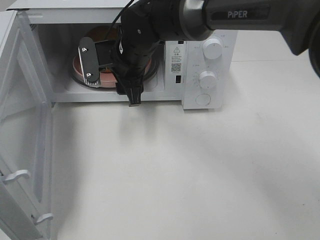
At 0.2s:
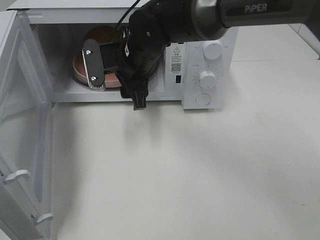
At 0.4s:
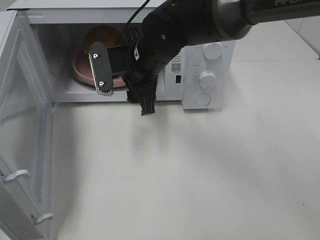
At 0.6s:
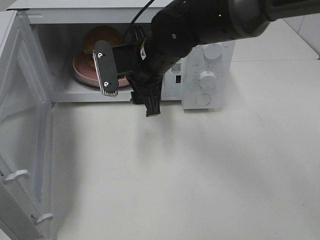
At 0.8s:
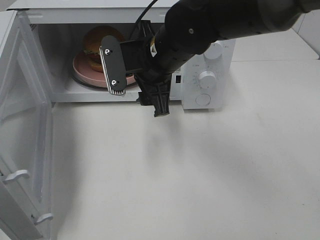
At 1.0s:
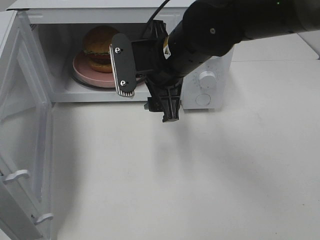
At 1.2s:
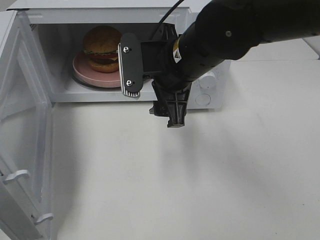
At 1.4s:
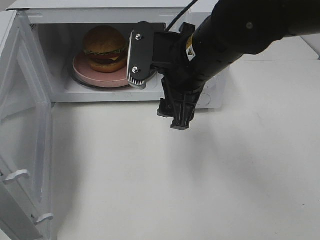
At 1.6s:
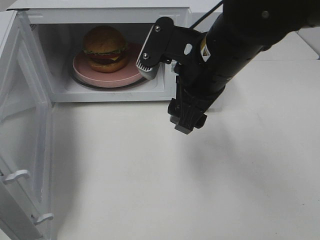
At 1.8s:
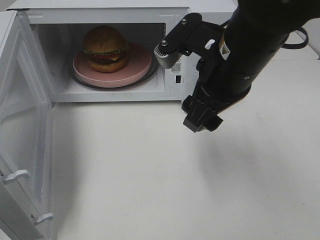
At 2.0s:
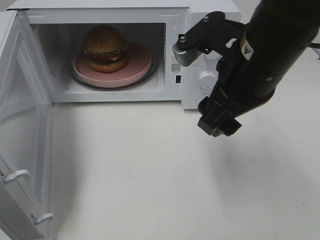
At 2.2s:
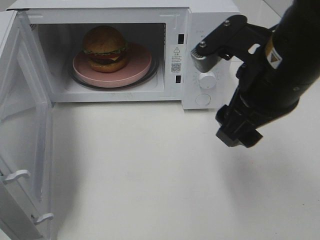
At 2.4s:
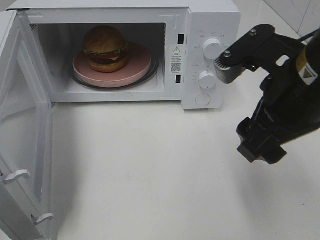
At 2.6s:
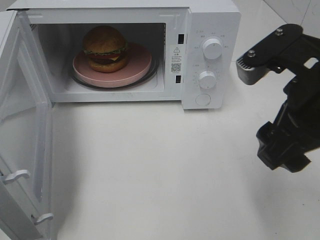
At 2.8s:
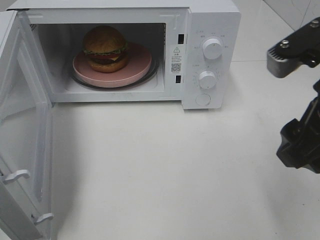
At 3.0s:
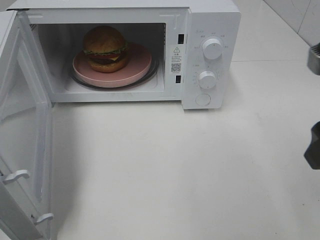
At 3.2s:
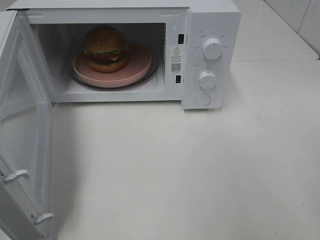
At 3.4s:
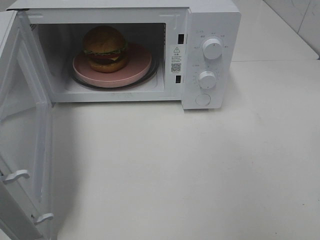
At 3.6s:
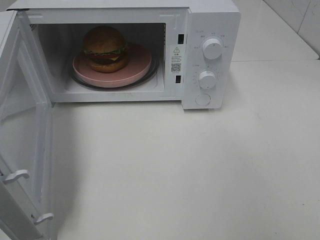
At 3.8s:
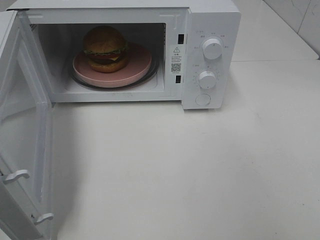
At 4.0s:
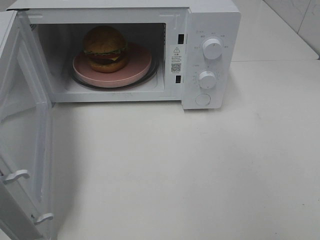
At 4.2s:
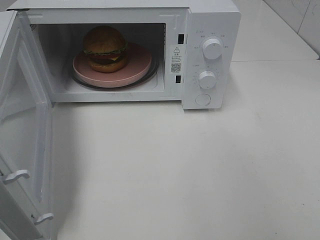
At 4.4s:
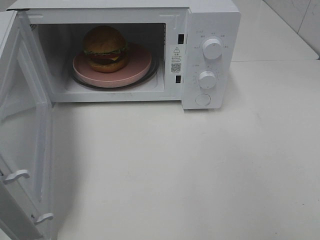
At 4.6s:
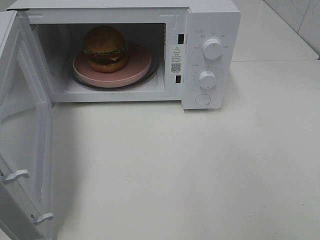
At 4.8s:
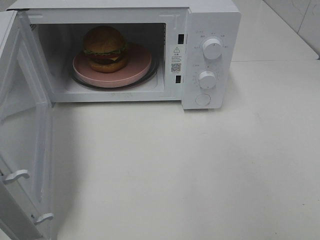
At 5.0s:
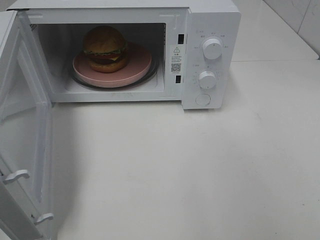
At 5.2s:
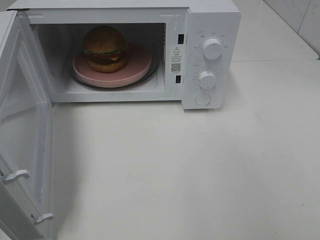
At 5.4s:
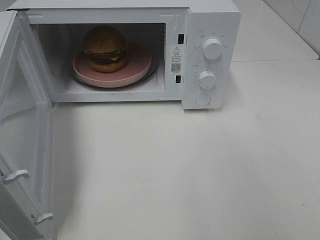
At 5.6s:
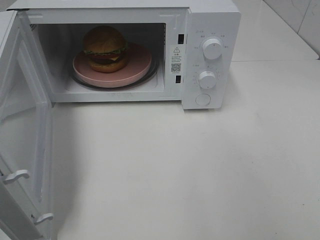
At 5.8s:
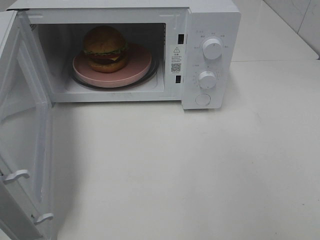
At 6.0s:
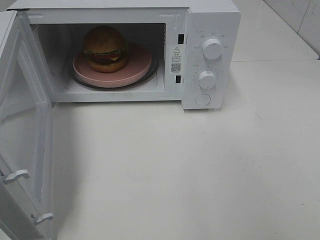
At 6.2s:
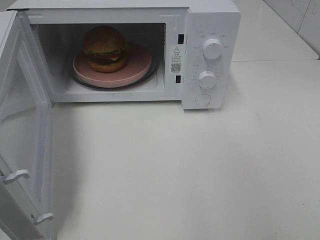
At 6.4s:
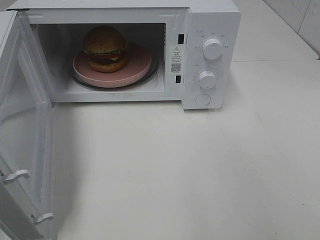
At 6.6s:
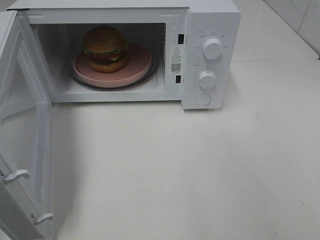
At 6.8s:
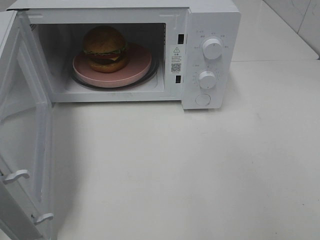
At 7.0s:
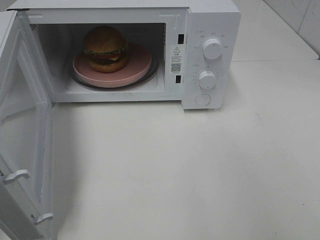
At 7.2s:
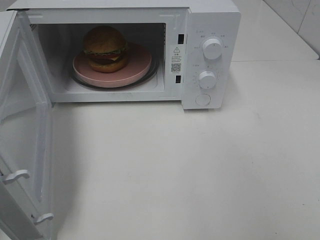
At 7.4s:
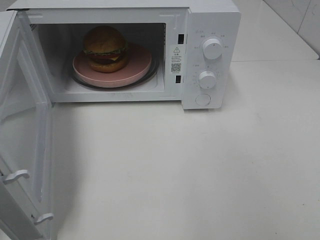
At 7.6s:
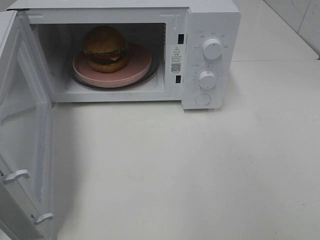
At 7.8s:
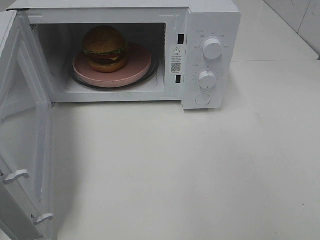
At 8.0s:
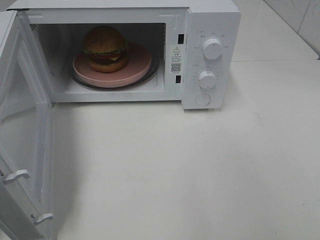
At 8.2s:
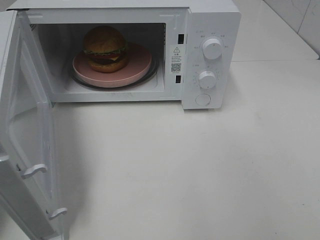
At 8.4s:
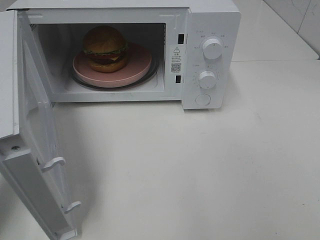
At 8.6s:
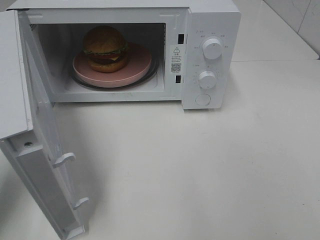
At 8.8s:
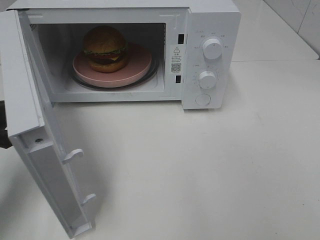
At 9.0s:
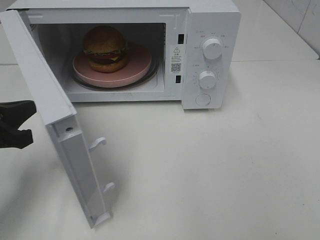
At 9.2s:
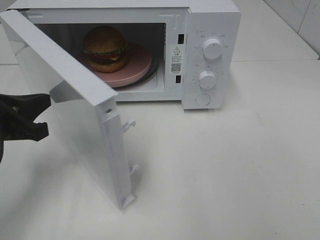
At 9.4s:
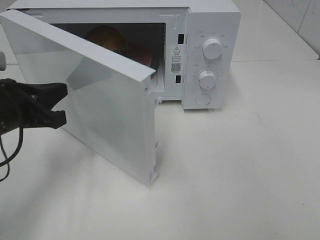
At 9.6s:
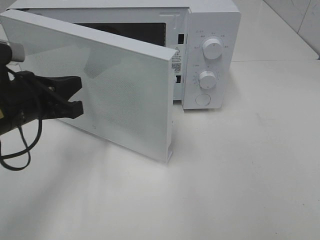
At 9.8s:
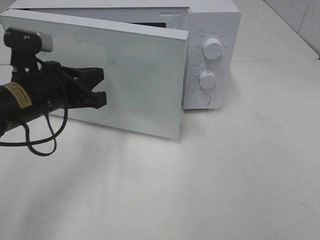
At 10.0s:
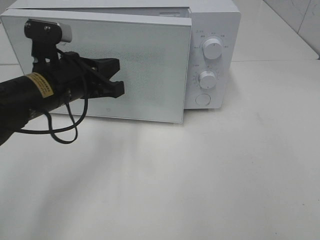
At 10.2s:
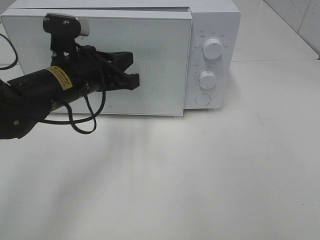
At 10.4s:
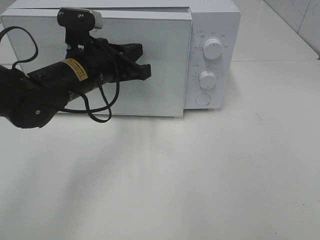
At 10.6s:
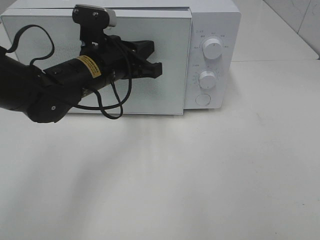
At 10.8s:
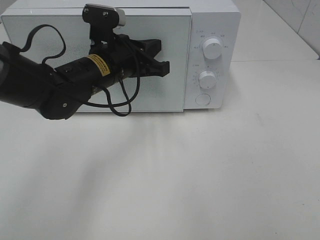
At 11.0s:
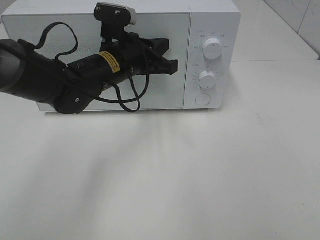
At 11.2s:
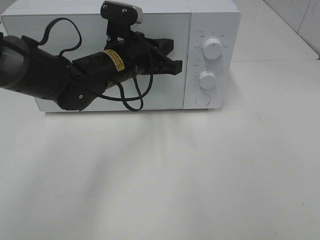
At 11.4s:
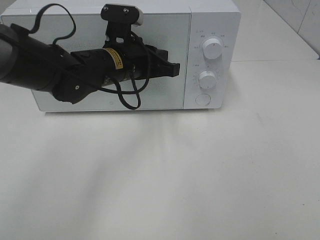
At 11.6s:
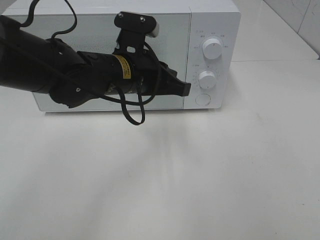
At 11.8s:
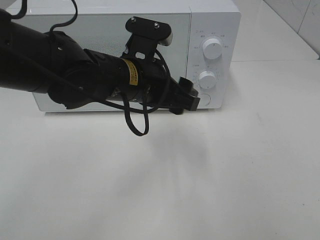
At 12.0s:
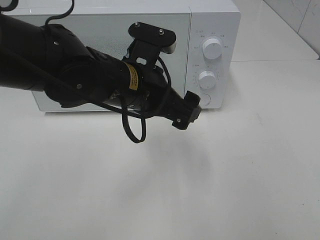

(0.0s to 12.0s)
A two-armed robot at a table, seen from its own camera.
Task of the whole recording: Heat the burger.
Step, 0.0s - 11.4s: Left hand: close the microwave door.
0.0s - 1.6s: The right gripper is displaced backward, to the right and upward by some 20 cm.
1.6s - 3.0s: The right gripper heads to the right and backward, covering roughly 20 cm.
3.0s - 4.4s: The right gripper shifts about 20 cm backward and to the right.
4.4s - 6.0s: Neither gripper changes place.
7.6s - 9.0s: The left gripper heads downward, to the right and forward, covering approximately 10 cm.
9.0s - 10.4s: The left gripper moves to the right and forward, roughly 20 cm.
10.4s - 12.0s: The left gripper shifts roughly 10 cm to the right and backward, and opens up.

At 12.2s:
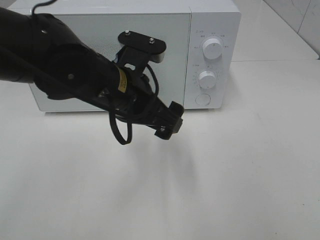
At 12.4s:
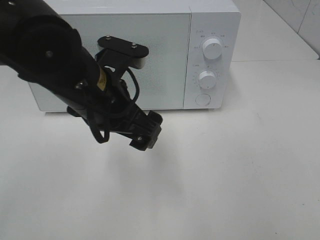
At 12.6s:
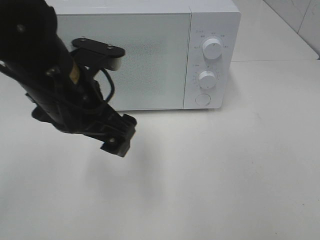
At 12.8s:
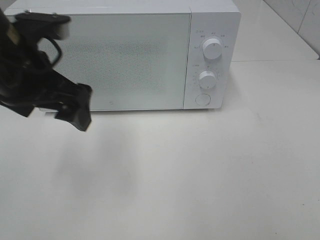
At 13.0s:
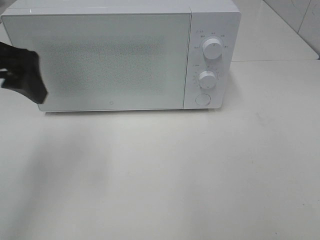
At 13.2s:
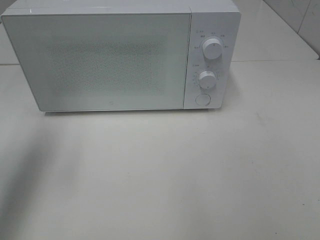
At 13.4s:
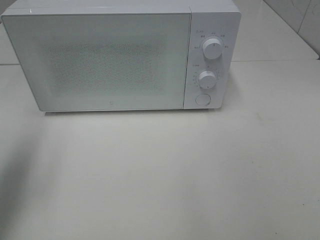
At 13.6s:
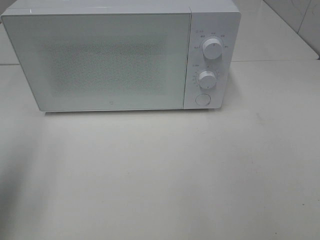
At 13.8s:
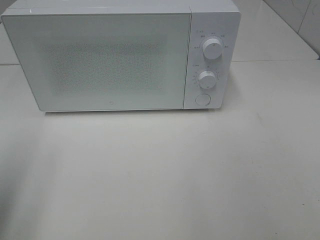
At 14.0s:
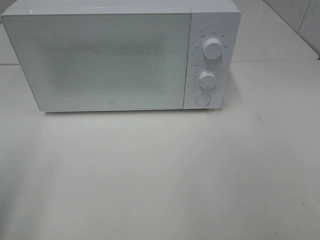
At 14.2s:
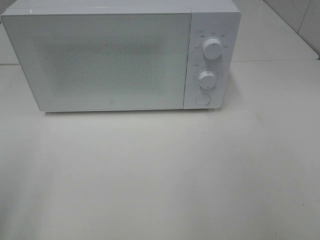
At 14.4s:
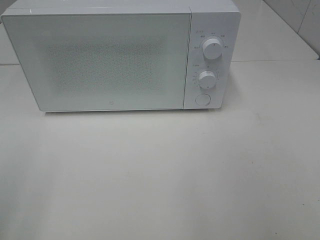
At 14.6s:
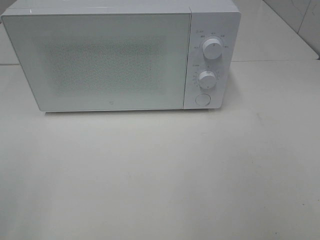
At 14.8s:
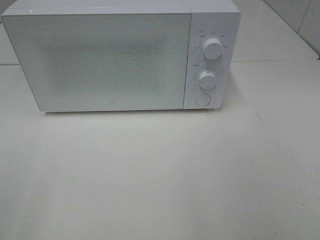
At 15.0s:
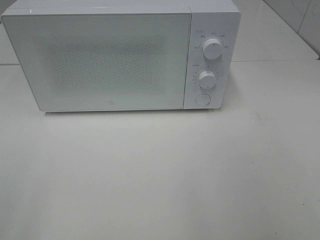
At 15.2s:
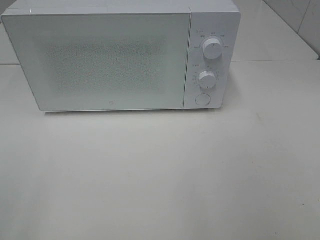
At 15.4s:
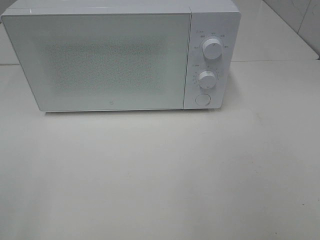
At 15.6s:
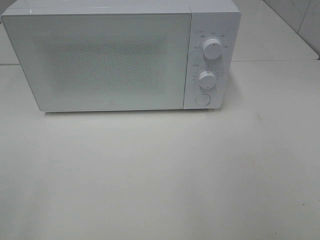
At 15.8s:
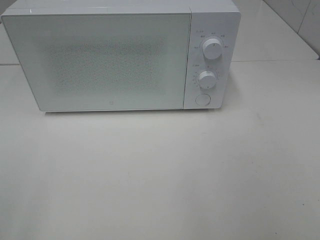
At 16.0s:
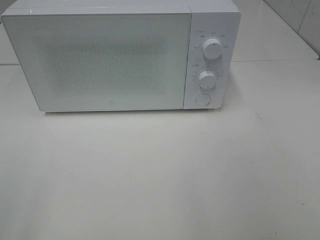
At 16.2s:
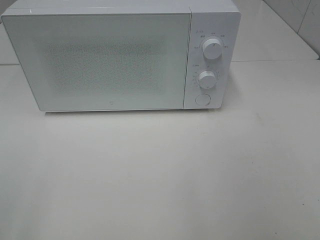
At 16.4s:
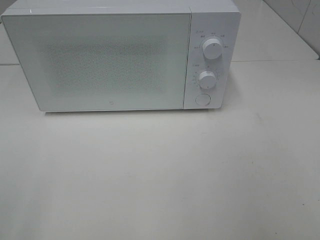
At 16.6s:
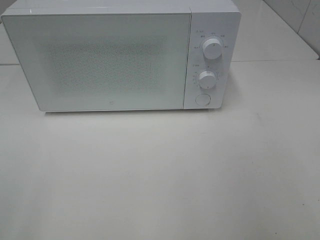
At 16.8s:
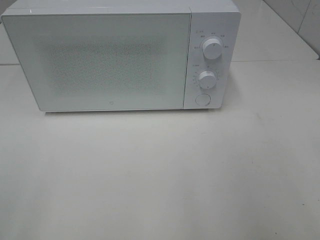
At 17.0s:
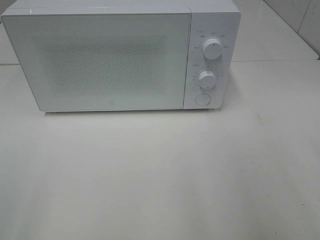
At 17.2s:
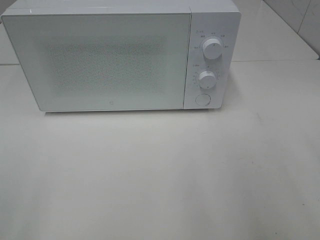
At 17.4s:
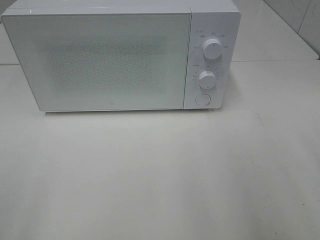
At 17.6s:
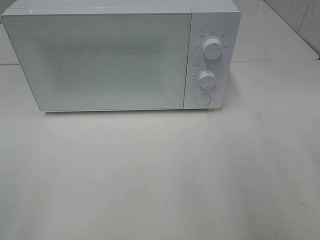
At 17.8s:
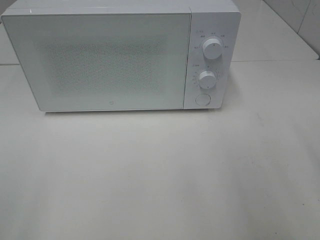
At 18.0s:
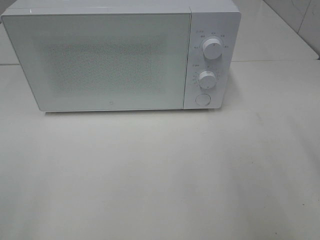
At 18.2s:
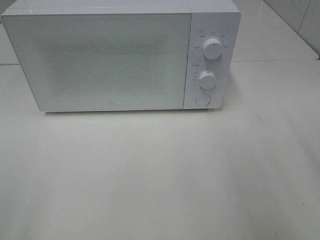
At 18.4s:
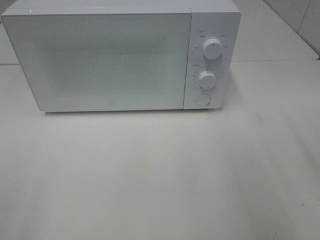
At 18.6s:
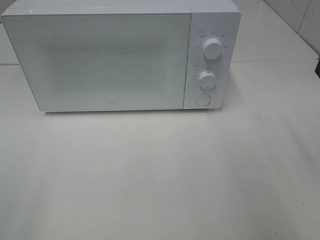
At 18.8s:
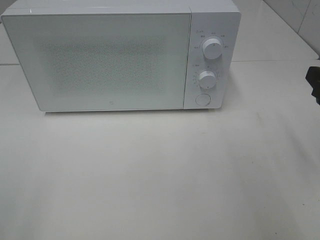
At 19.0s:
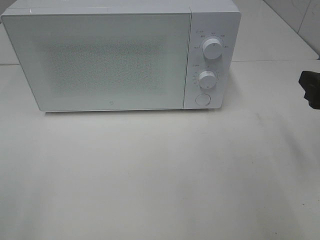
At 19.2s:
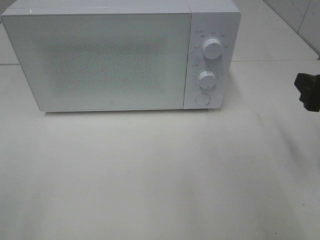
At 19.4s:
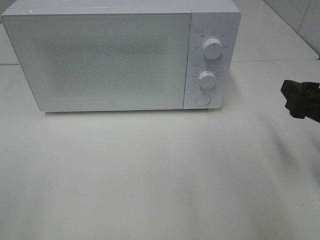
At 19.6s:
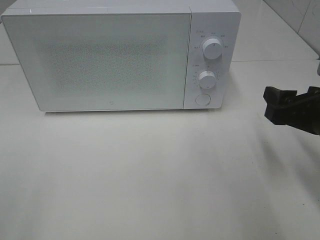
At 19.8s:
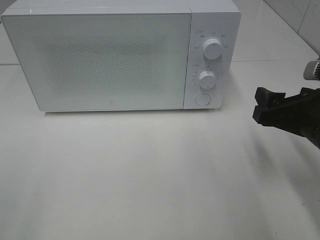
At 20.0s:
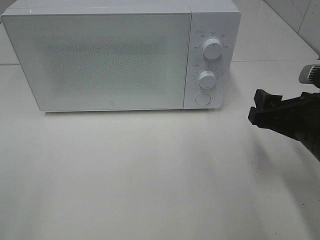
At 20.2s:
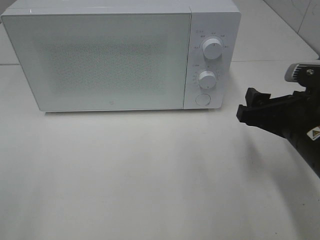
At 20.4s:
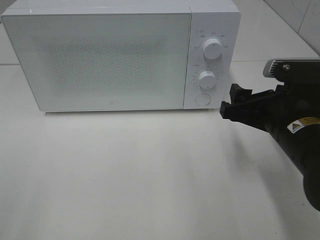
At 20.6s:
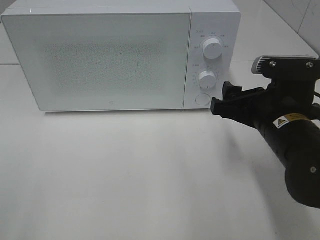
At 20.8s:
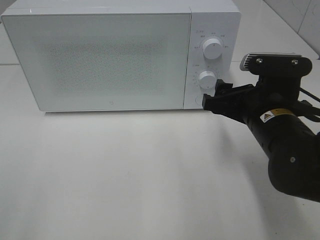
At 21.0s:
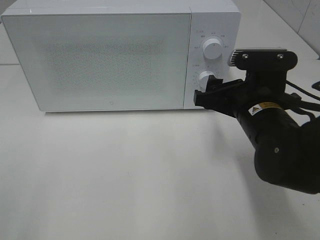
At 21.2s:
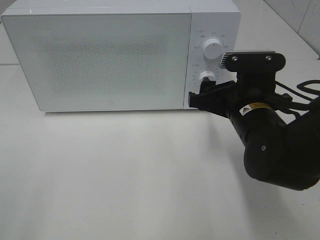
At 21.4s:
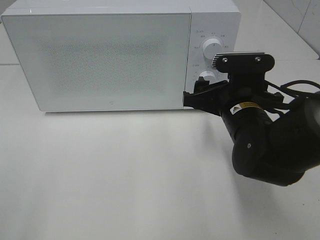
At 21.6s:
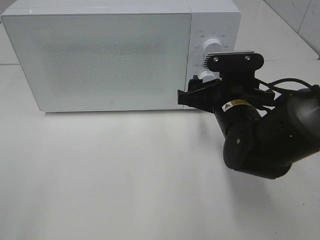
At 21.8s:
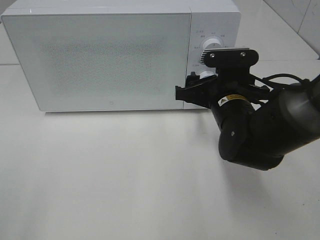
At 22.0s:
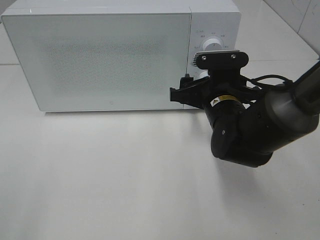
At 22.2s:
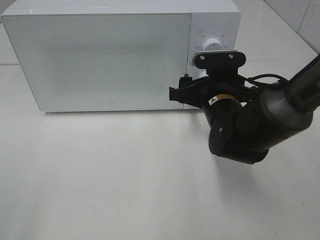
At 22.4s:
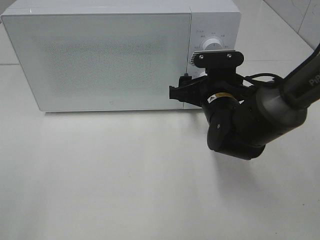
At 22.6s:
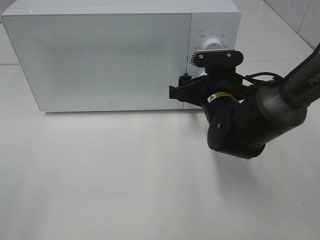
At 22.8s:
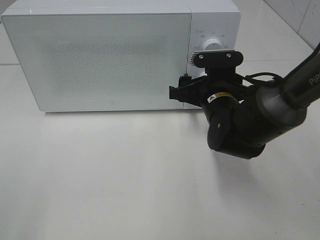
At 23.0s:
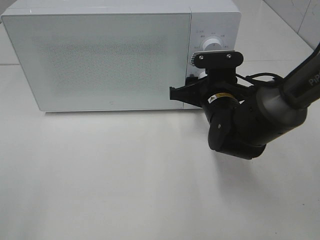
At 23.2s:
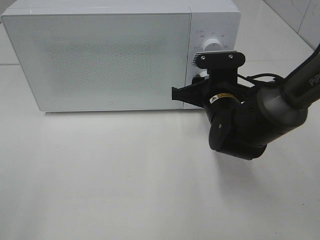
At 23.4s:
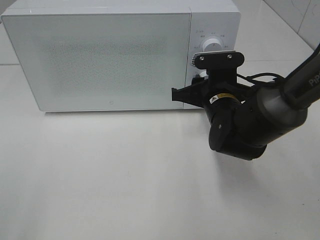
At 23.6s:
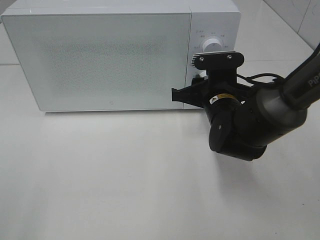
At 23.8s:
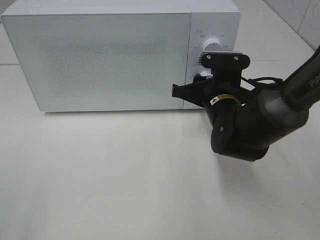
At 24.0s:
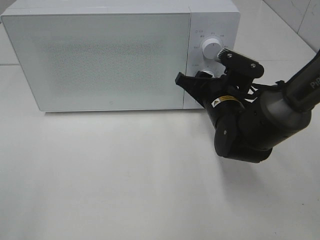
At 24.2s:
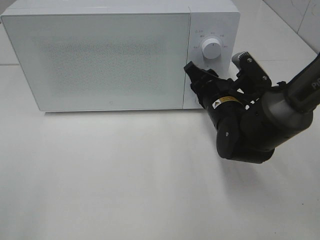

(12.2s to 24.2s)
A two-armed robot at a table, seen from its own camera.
Task of the whole recording: Heat the burger.
12.2s - 13.8s: The left gripper shifts some 30 cm to the left and backward.
13.8s - 15.2s: The left gripper is displaced backward by roughly 15 cm.
18.2s - 19.8s: The right gripper shifts approximately 10 cm downward and to the left.
19.8s - 21.2s: The right gripper goes some 10 cm to the left and forward.
21.2s - 22.6s: The right gripper goes approximately 5 cm forward.
22.6s - 24.2s: The right gripper closes up.
